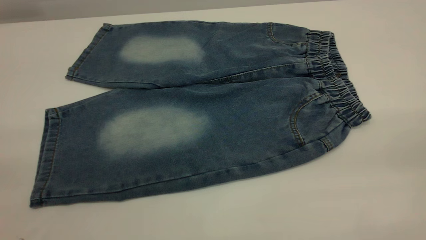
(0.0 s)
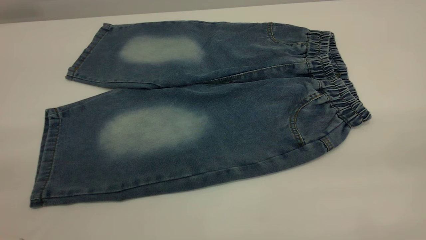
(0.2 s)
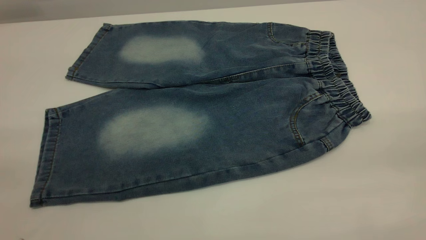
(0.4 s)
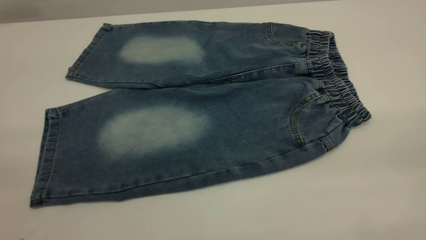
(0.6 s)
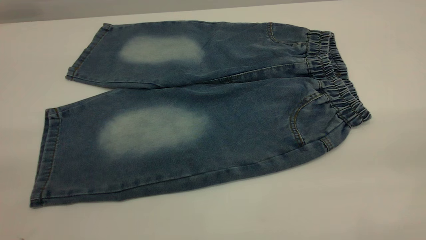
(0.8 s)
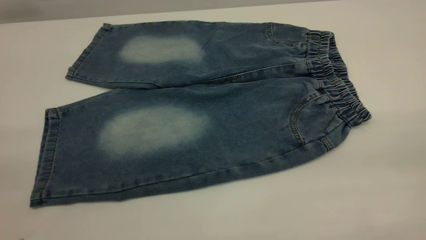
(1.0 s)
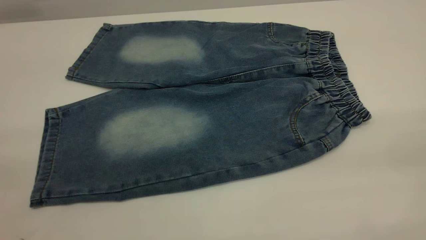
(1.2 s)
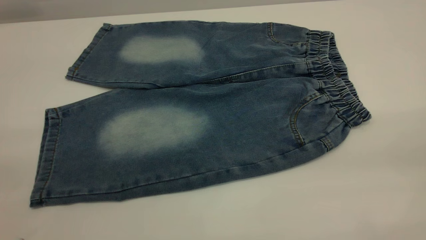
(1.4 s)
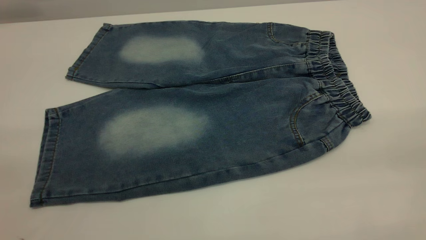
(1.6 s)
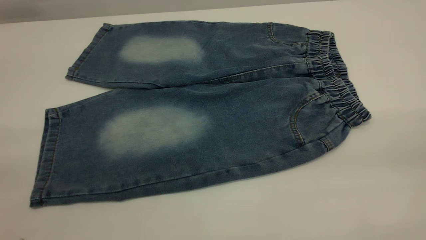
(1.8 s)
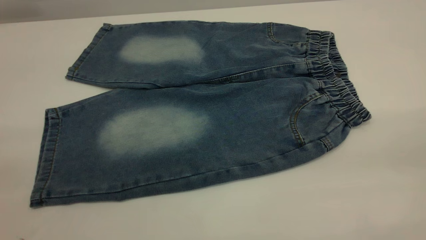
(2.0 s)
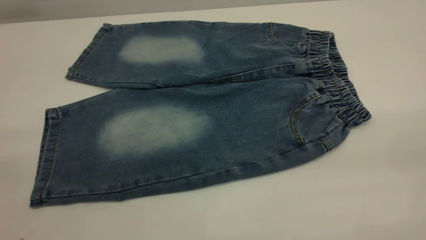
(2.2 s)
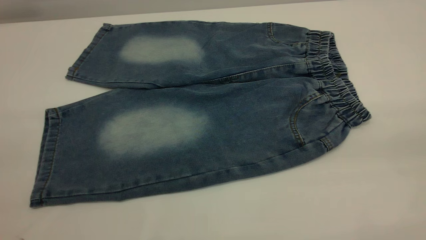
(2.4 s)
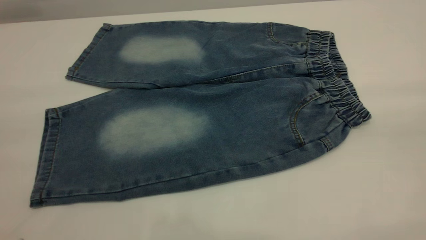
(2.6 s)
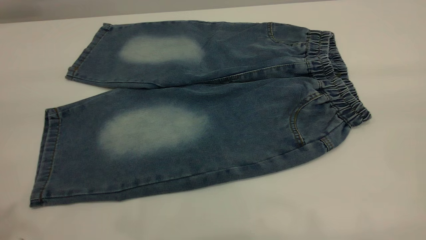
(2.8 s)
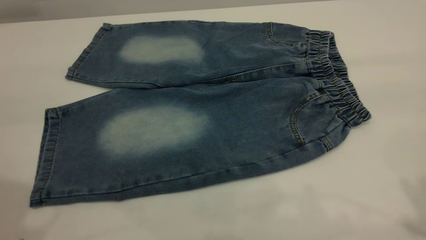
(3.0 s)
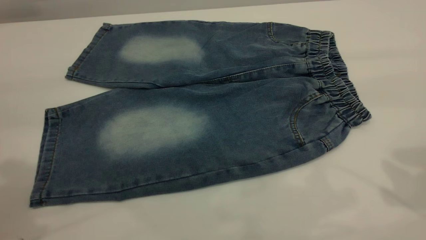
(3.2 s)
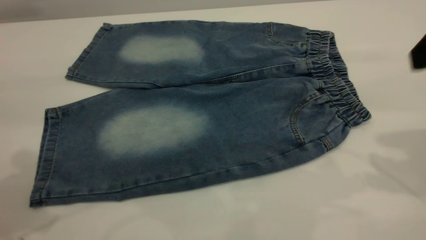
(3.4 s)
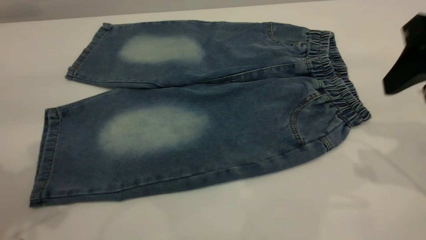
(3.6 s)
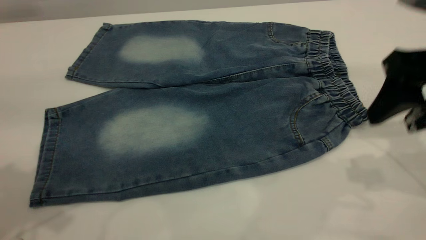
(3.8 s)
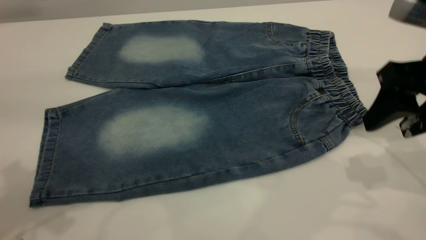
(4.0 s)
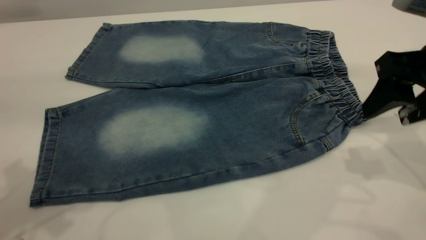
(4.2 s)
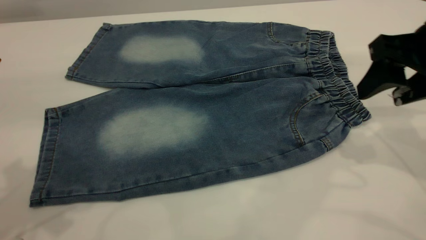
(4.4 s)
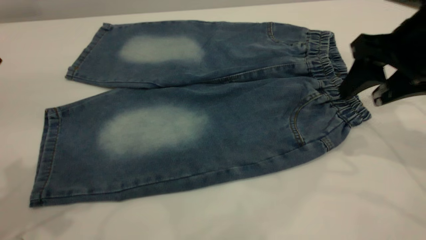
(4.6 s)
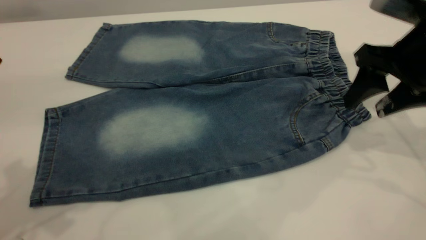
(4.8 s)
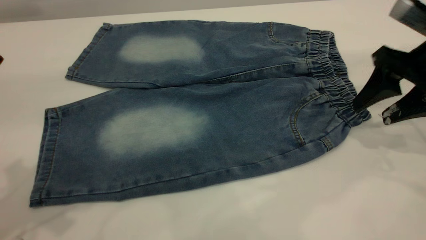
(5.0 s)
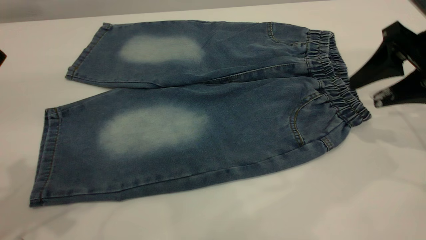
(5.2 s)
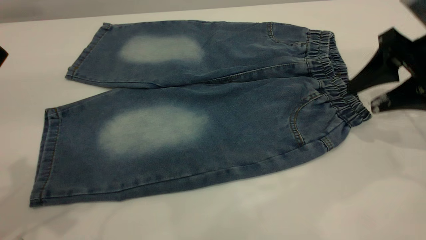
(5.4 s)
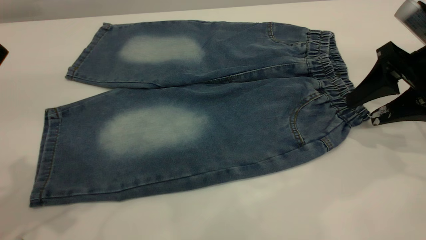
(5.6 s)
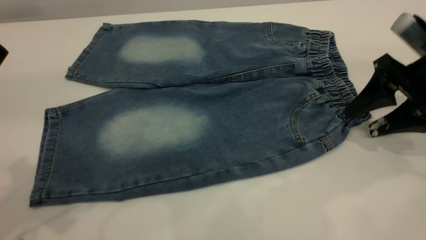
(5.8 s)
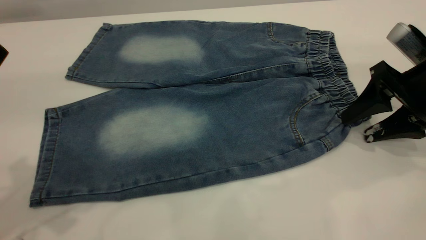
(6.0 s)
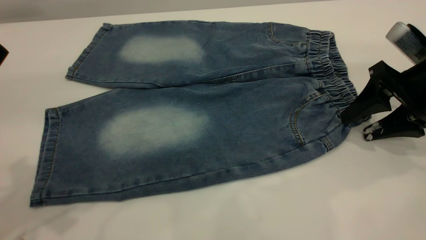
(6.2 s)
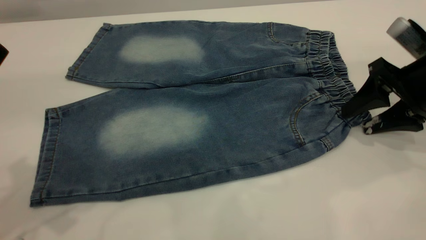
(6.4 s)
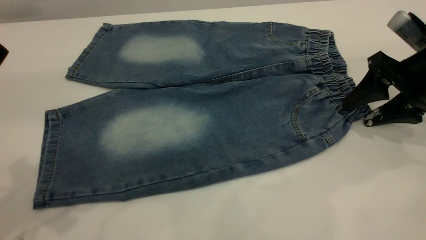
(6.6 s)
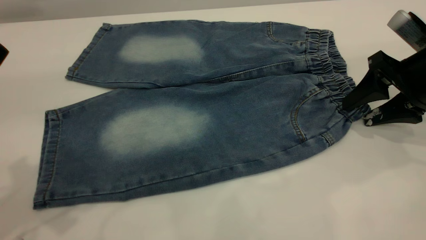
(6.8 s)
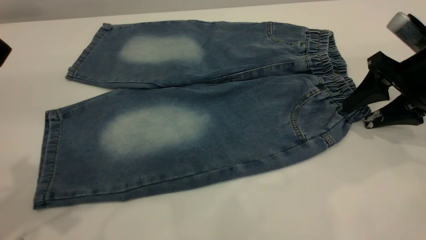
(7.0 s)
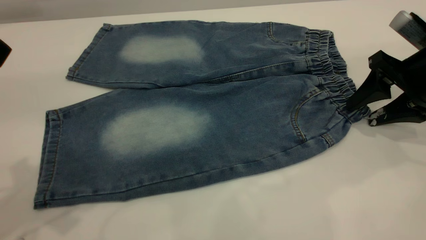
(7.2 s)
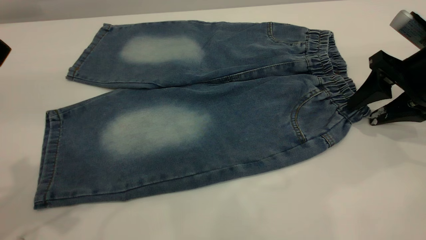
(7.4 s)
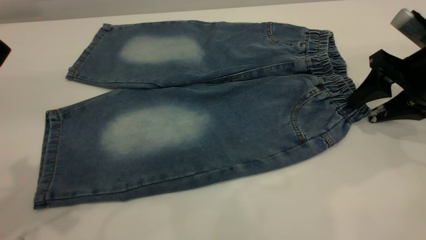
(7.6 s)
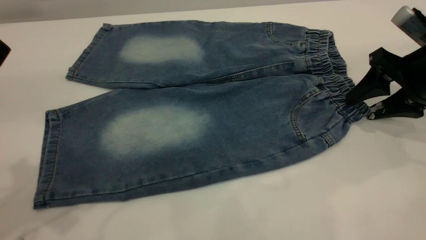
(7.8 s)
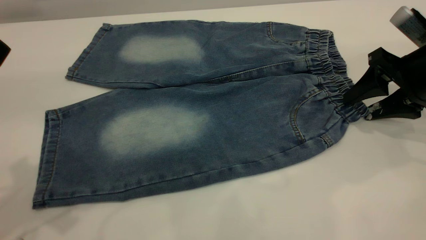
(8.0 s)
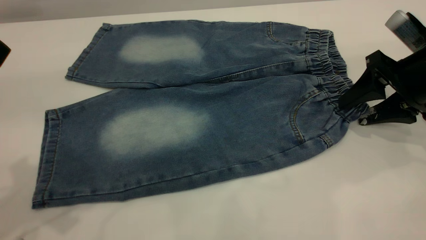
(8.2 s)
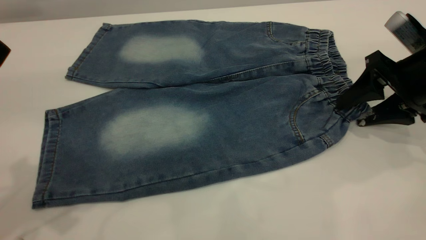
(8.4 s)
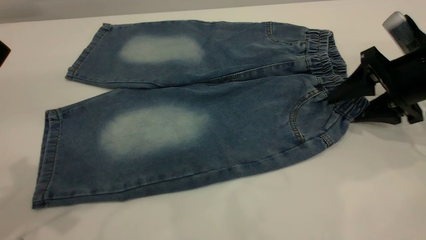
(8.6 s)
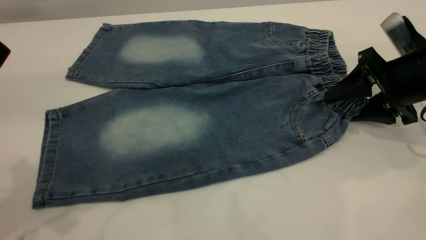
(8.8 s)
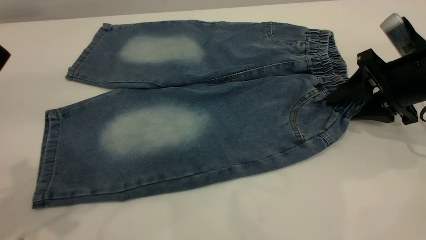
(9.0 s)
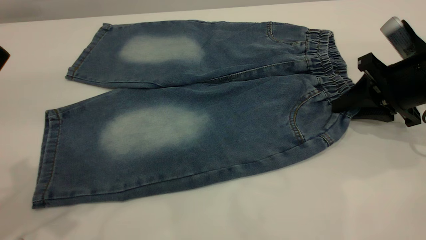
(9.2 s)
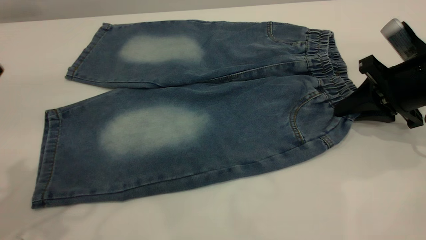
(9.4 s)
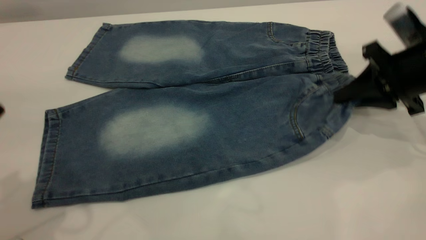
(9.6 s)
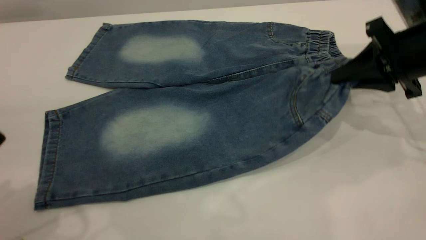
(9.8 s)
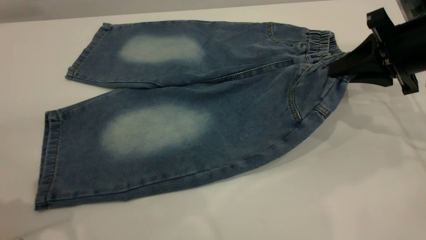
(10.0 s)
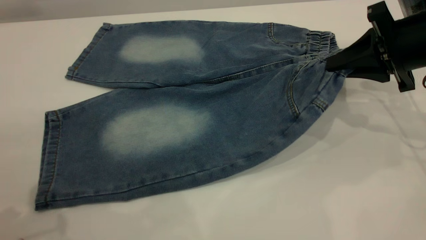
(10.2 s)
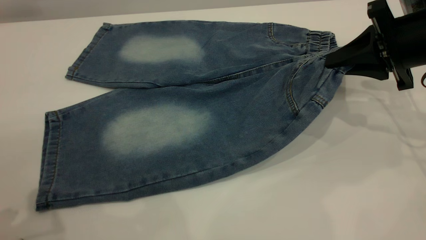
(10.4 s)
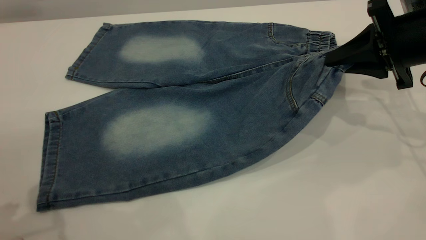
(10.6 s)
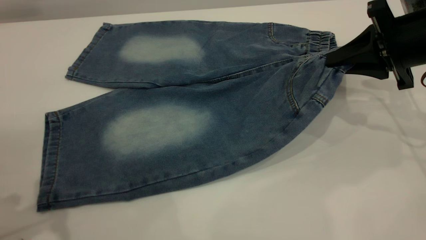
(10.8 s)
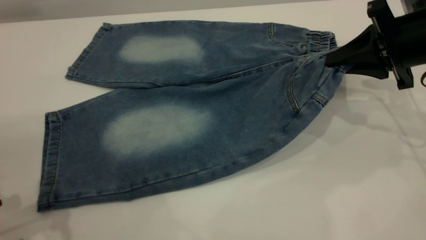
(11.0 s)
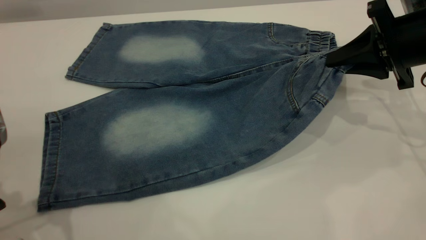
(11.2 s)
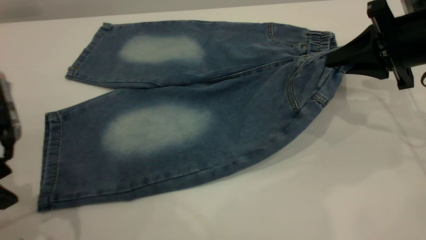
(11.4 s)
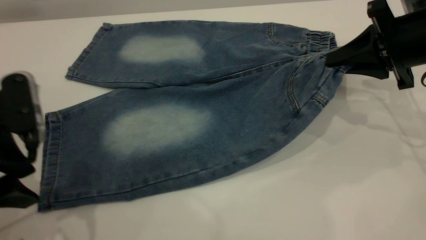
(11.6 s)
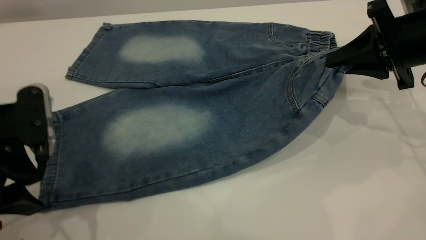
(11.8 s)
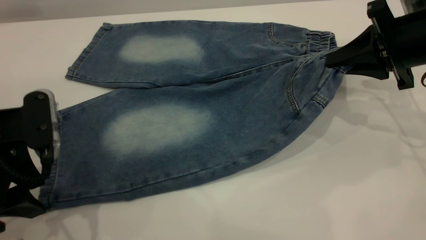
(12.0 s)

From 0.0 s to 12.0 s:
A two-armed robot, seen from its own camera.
From 0.0 s to 1.6 s: Both grippers stay put.
From 3.0 s to 4.4 s: The right gripper travels downward and forward by about 20 cm.
From 4.4 s to 6.0 s: The right gripper moves downward, approximately 10 cm.
From 6.0 s to 9.0 s: The grippers make only small movements.
From 9.0 s to 10.4 s: The right gripper moves upward, some 5 cm, and closes. Meanwhile the left gripper travels downward and backward by approximately 10 cm.
From 10.4 s to 12.0 s: The left gripper heads downward and forward, covering approximately 10 cm.

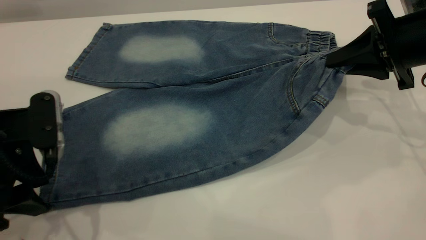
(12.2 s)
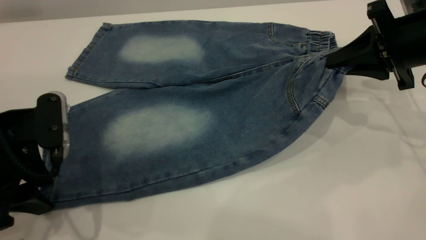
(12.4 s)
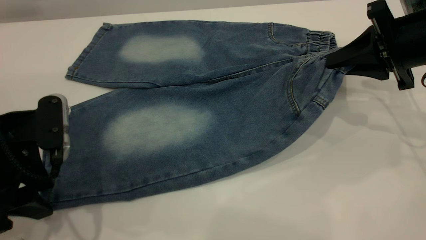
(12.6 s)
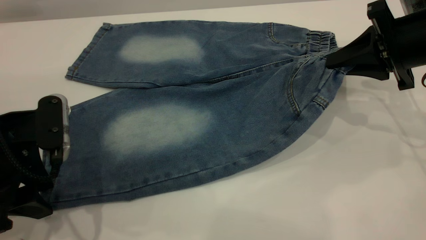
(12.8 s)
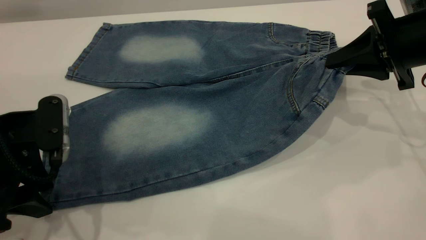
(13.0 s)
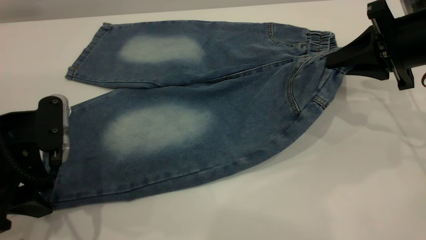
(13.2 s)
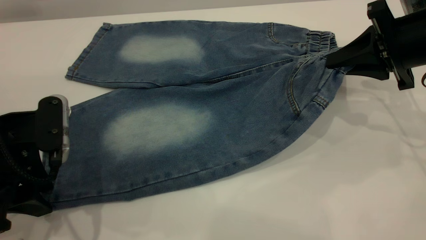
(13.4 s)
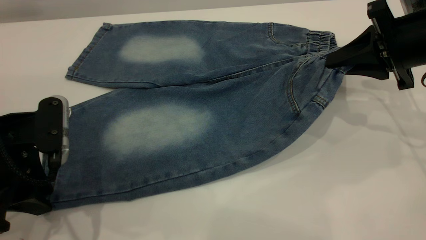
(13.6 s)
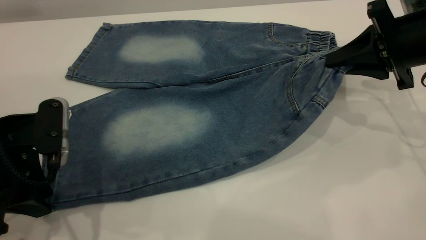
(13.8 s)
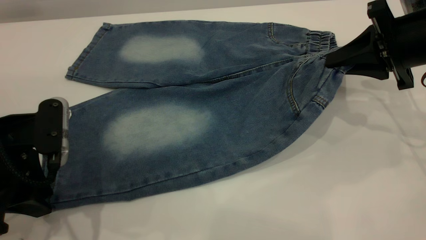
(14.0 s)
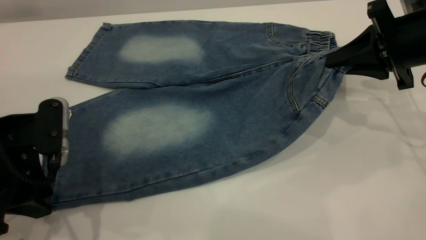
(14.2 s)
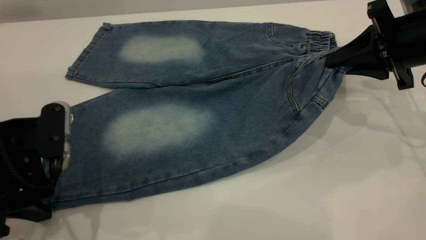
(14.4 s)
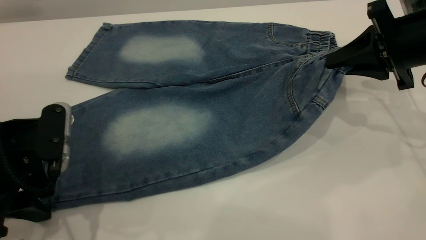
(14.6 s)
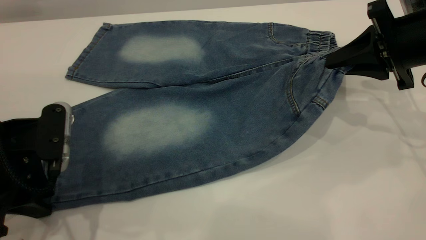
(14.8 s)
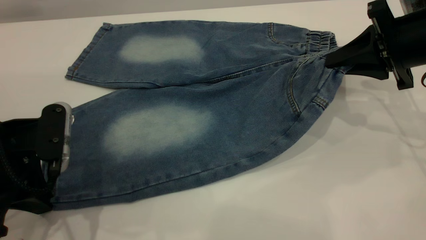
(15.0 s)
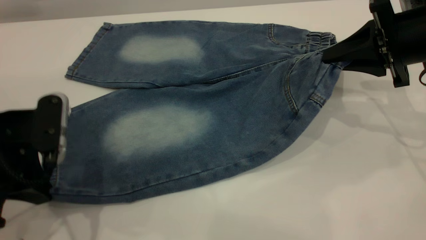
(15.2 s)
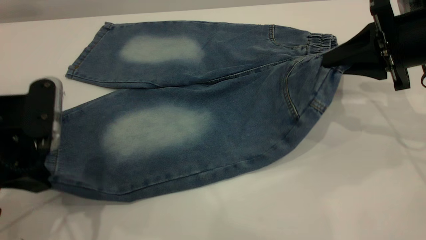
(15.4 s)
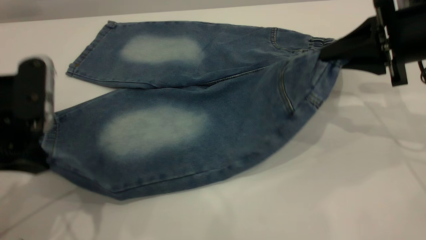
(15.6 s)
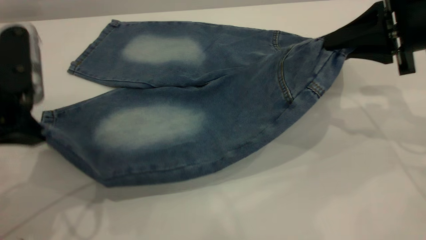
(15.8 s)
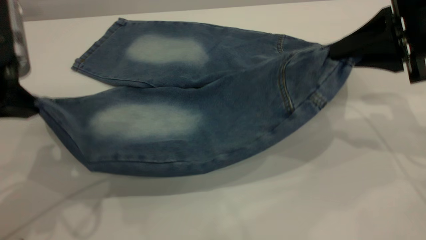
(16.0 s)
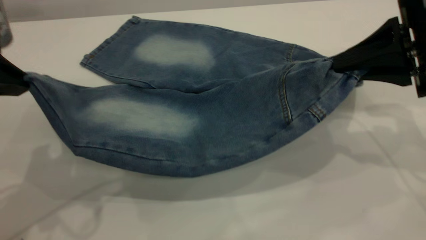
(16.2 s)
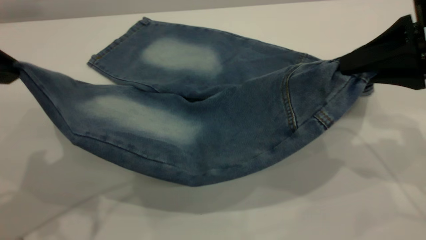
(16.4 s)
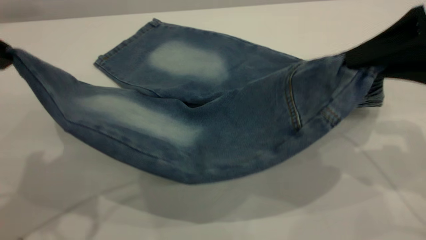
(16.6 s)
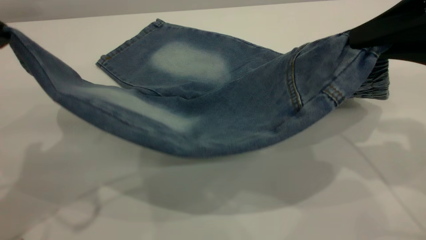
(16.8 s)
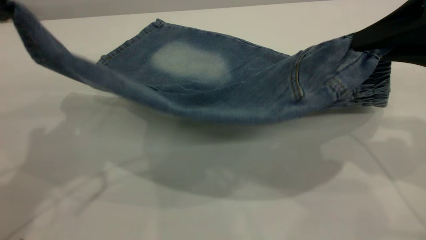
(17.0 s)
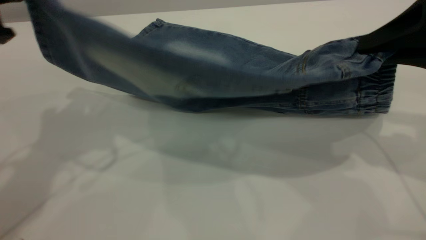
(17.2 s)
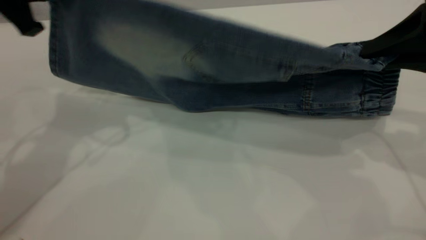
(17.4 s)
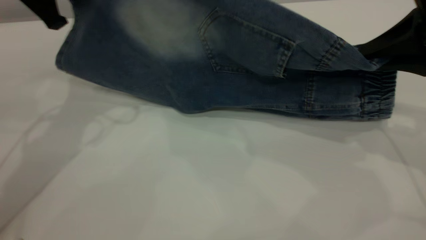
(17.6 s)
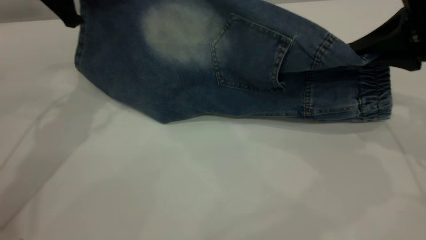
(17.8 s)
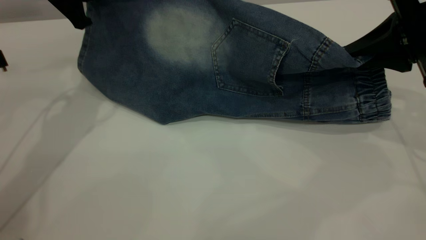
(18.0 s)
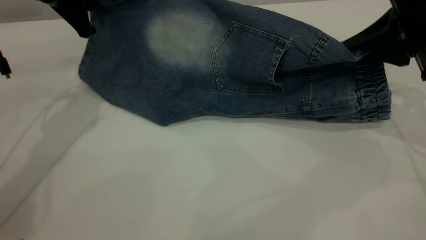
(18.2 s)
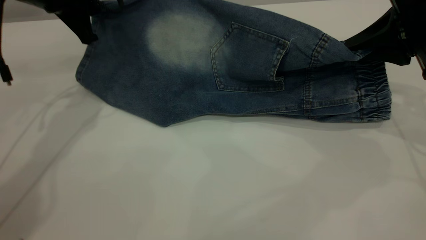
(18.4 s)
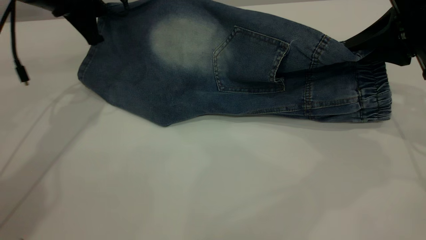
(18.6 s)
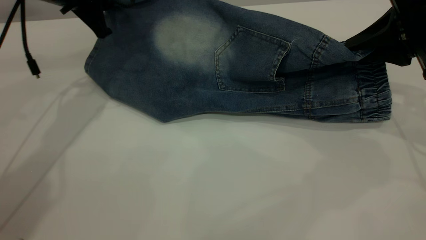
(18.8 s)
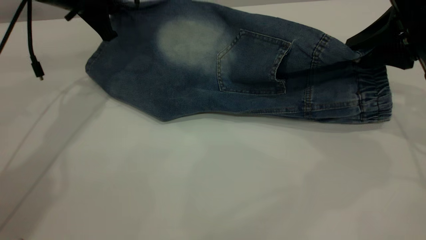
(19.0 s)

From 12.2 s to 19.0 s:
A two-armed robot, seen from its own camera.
From 12.2 s to 13.6 s: The left gripper closes up.
From 13.6 s to 15.0 s: The left gripper closes.
From 15.0 s to 16.2 s: The right gripper goes about 5 cm backward; the left gripper is displaced upward by some 15 cm.
From 16.2 s to 17.6 s: The left gripper heads forward, covering approximately 15 cm.
From 17.6 s to 19.0 s: The left gripper heads forward and downward, covering roughly 10 cm.
